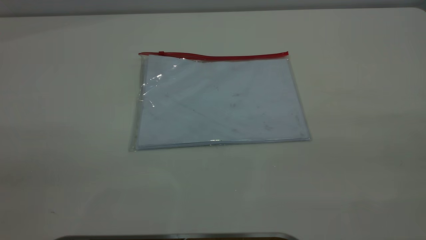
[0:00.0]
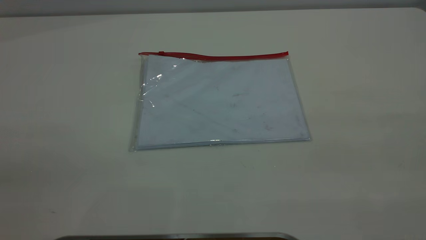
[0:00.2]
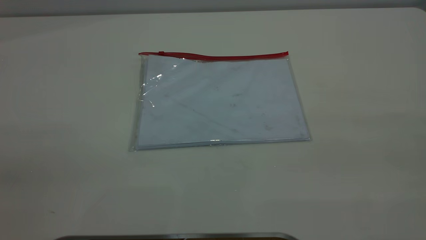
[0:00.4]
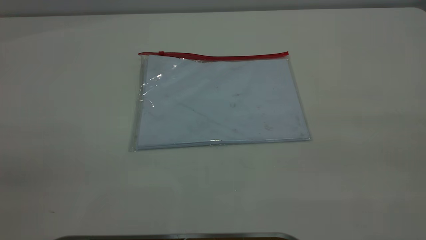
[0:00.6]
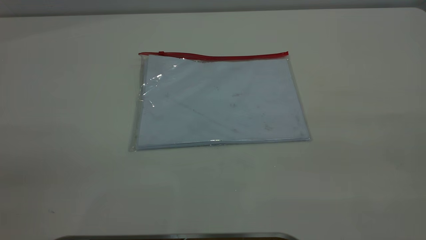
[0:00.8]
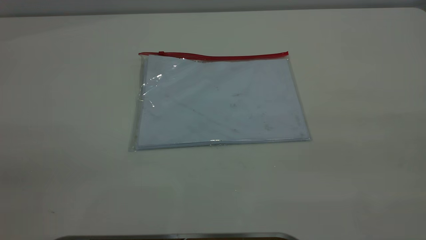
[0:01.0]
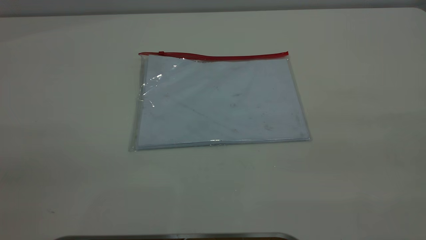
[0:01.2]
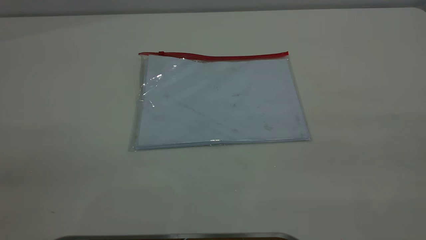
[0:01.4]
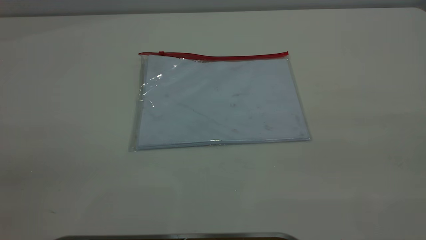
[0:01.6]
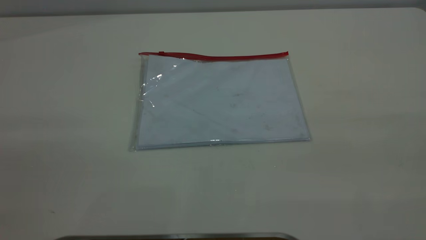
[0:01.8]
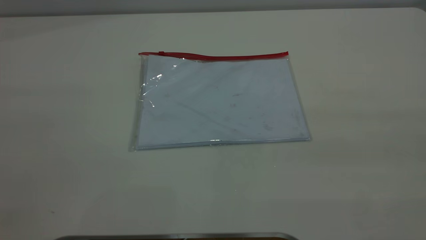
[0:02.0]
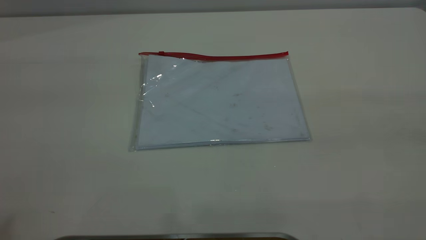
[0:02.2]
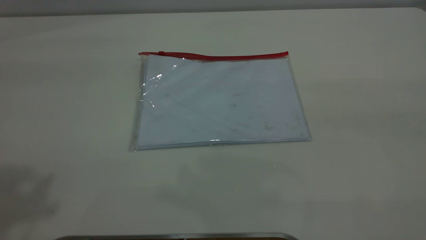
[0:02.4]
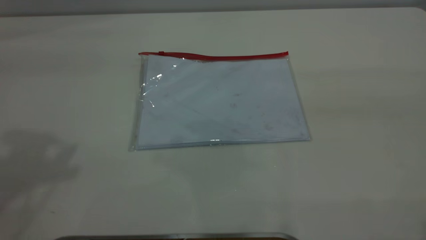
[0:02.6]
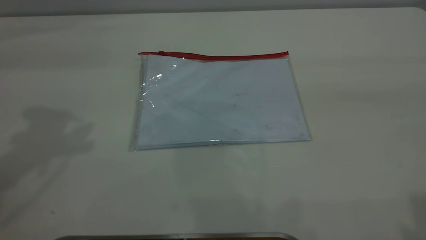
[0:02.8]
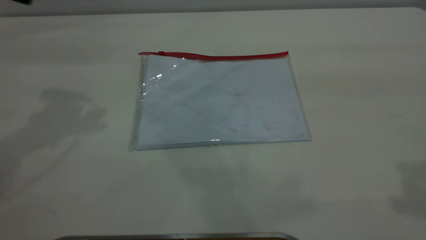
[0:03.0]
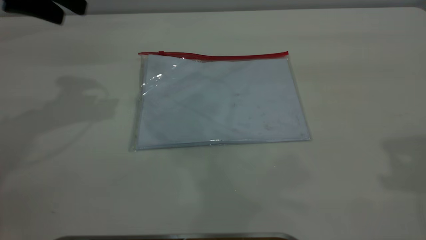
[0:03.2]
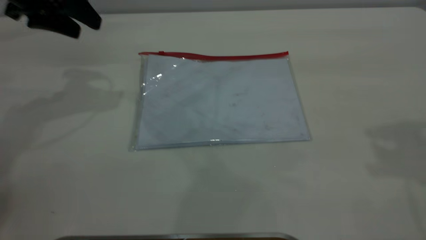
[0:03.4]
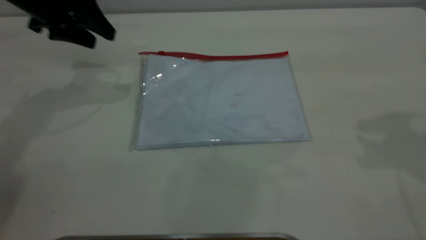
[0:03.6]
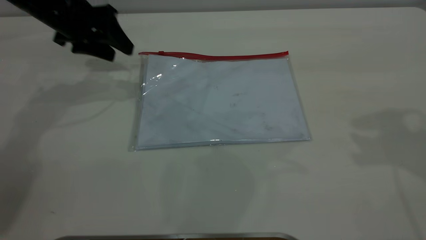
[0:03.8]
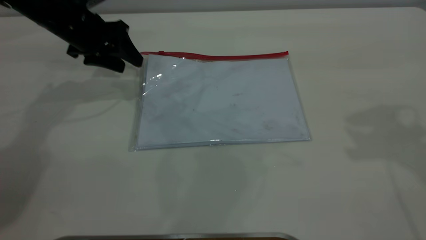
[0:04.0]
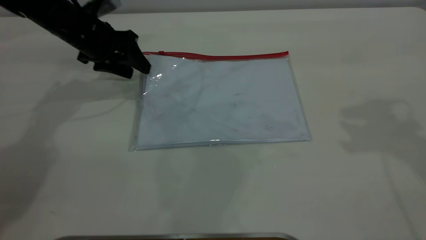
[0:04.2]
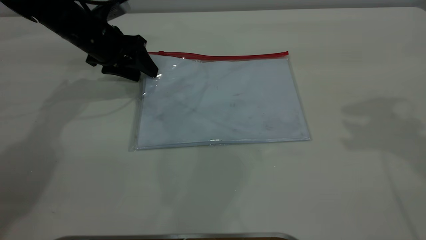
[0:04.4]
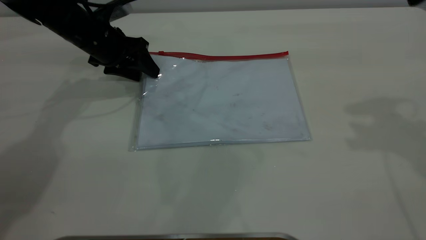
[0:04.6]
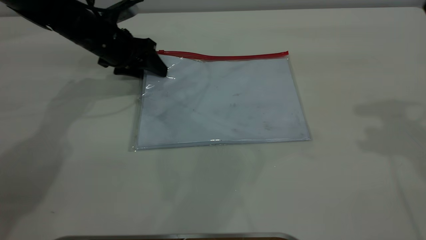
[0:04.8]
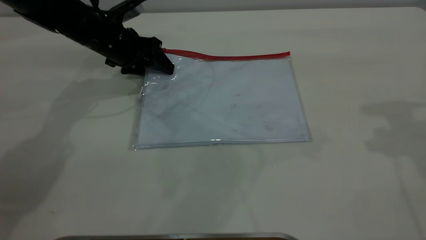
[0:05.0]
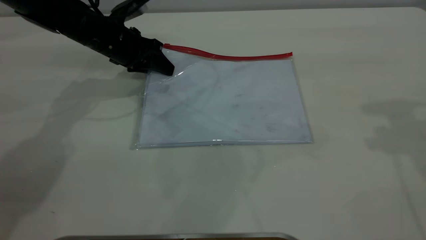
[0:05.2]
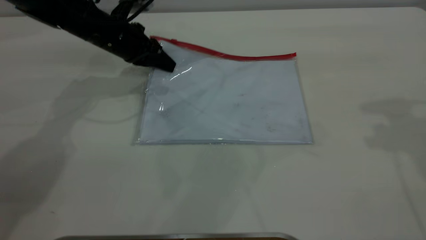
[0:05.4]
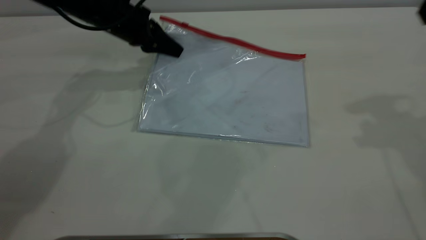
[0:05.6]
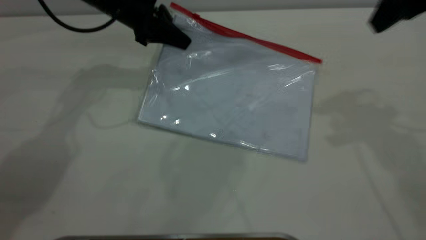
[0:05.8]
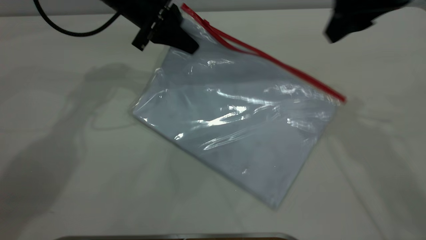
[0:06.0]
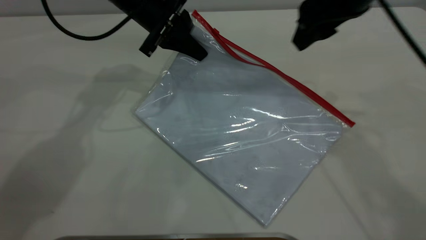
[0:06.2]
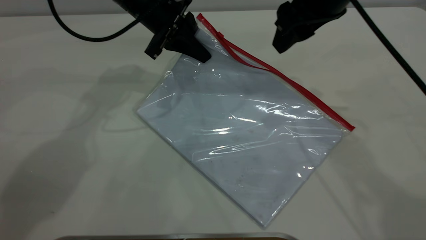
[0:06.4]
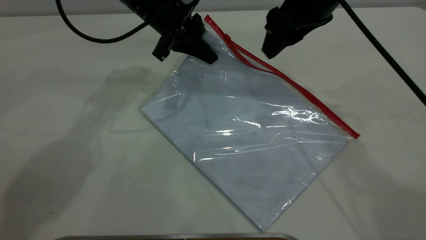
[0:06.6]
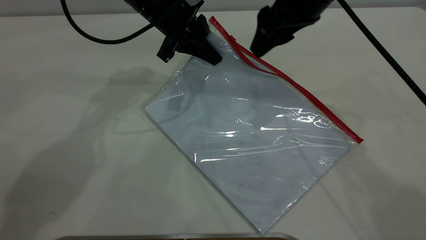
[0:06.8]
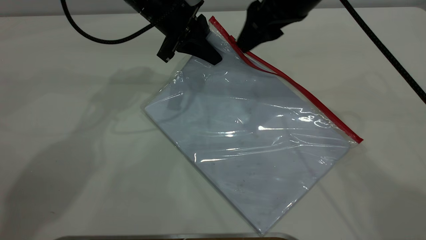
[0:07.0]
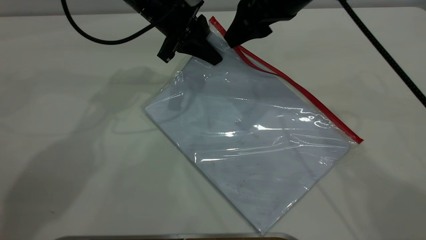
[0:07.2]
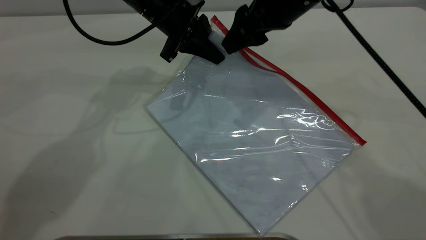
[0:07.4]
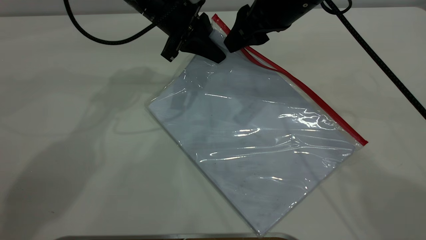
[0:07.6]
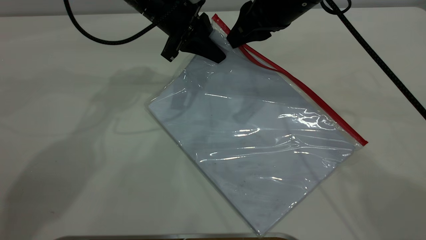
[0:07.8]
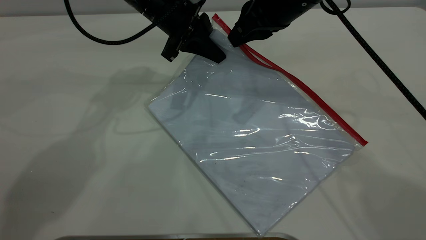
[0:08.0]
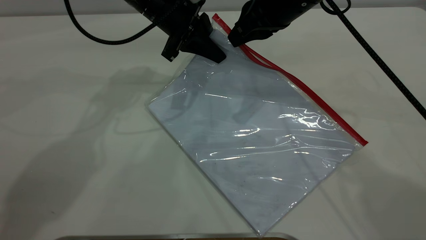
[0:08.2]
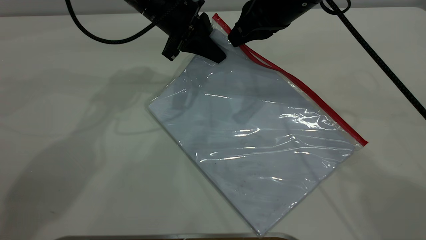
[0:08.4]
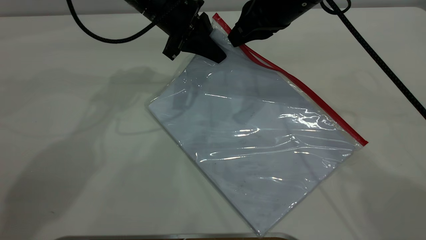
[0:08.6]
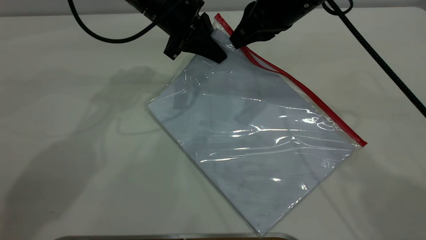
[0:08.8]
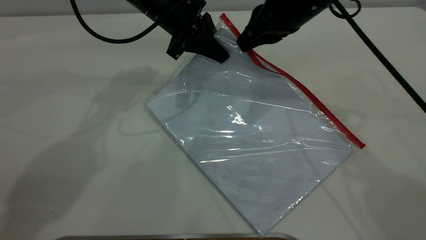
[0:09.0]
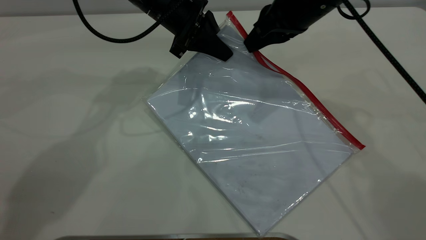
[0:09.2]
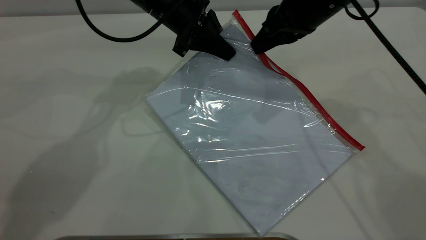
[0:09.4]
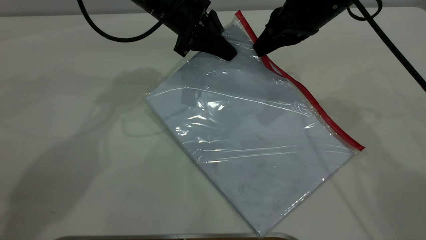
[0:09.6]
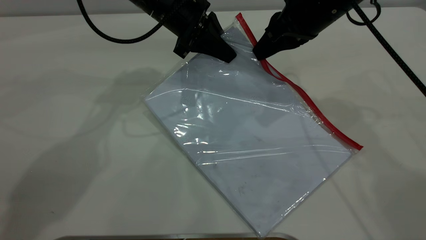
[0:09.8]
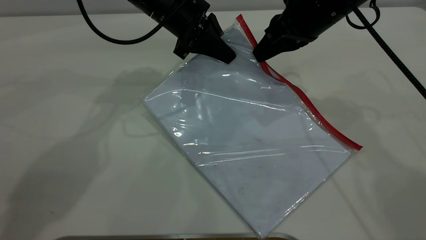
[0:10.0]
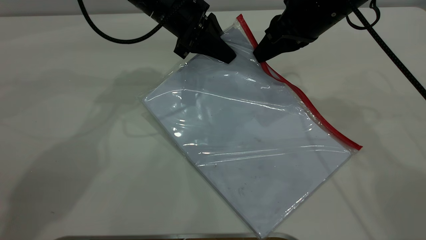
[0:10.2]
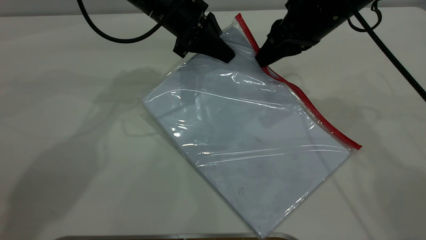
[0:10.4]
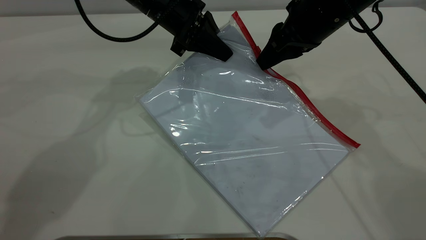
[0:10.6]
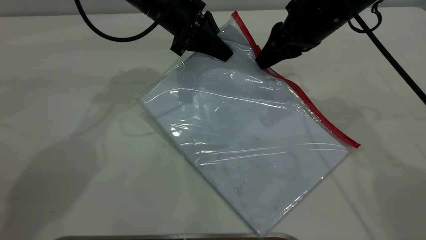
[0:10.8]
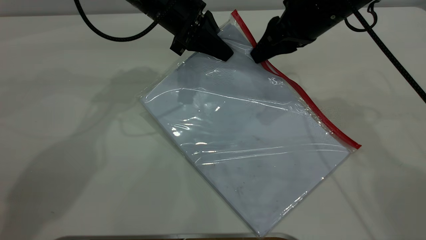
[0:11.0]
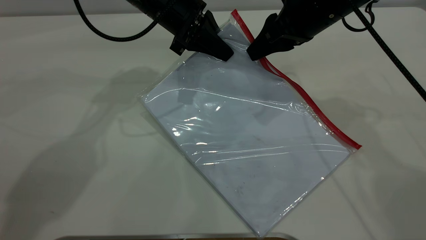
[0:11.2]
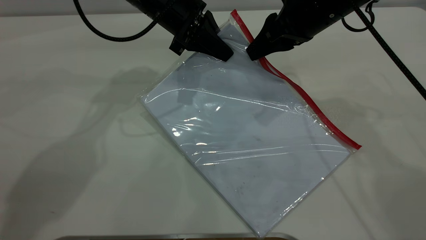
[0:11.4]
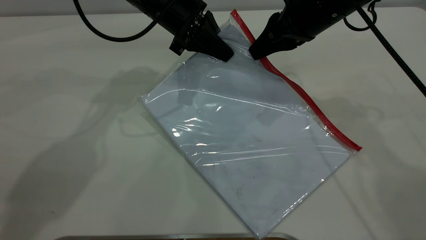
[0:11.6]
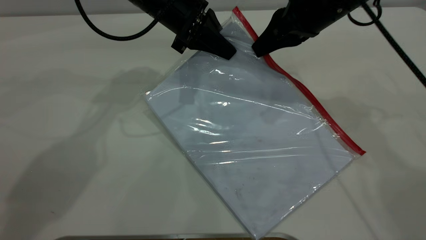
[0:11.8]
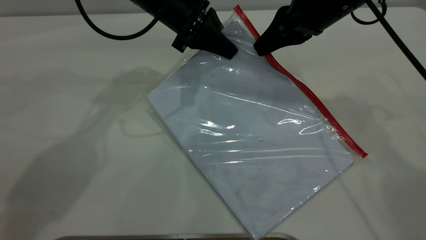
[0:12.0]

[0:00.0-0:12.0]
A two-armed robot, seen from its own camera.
Step, 0:00.0 to 0:05.6: Pick up the transparent plastic bag with the left gripper.
0:00.0 to 0:01.6: The two grippers keep their place.
0:03.0 to 0:04.4: The right gripper is displaced forward and downward by roughly 15 cm; the left gripper shifts approximately 25 cm downward and forward.
0:04.4 to 0:06.0: The left gripper goes some 10 cm to the right and upward, and closes, while the right gripper is displaced to the left and downward by approximately 10 cm.
0:06.0 to 0:07.6: The right gripper heads to the left, covering approximately 10 cm.
0:07.6 to 0:09.0: The right gripper closes.
0:09.0 to 0:12.0: The grippers make only small movements.

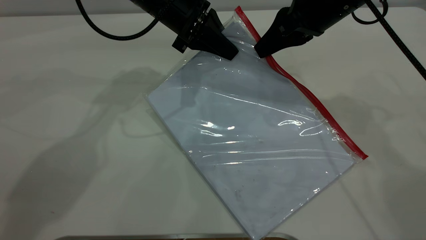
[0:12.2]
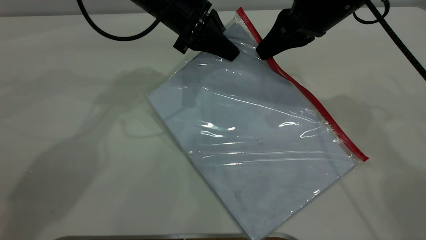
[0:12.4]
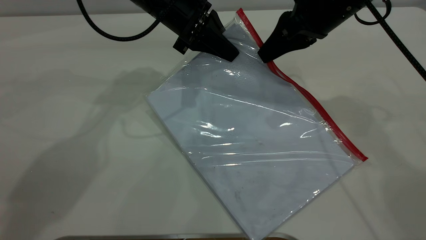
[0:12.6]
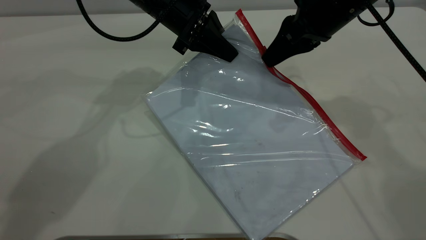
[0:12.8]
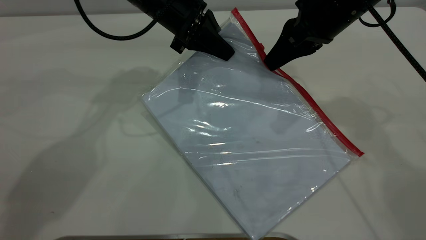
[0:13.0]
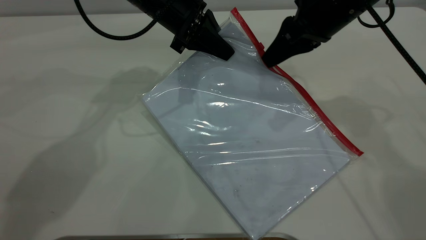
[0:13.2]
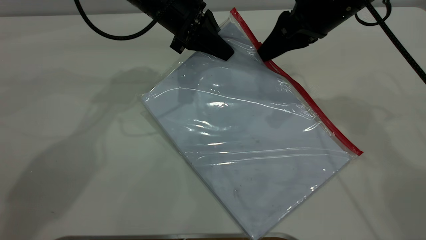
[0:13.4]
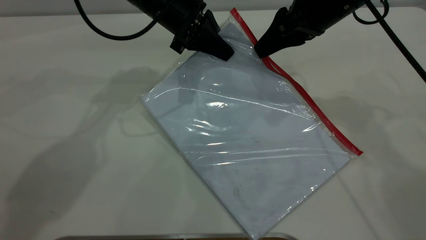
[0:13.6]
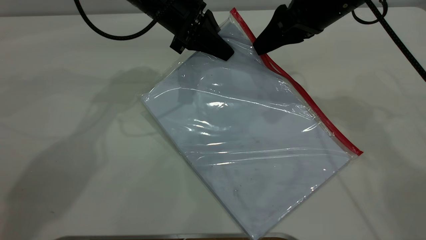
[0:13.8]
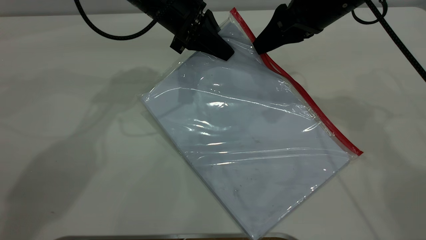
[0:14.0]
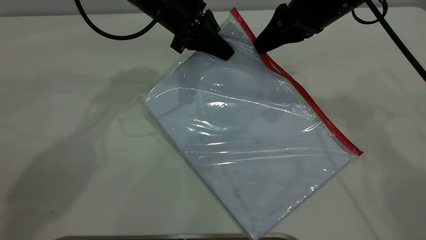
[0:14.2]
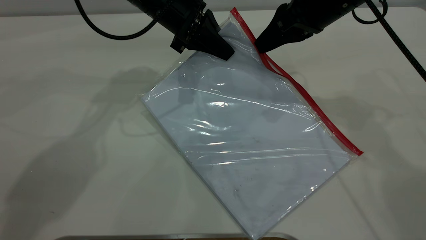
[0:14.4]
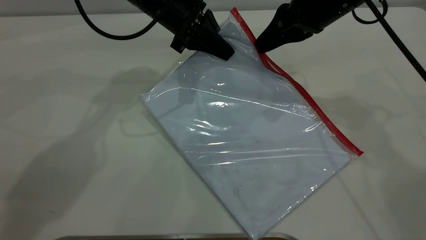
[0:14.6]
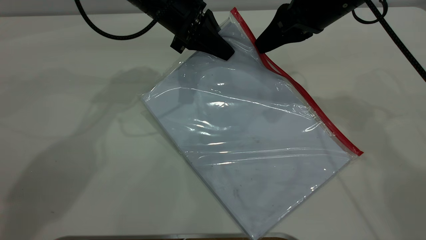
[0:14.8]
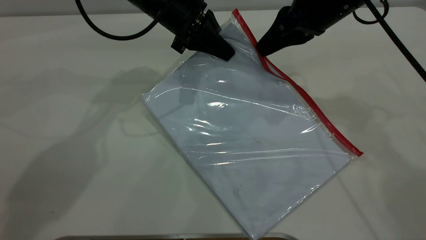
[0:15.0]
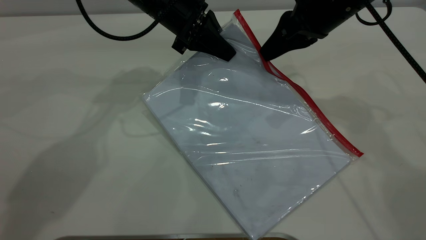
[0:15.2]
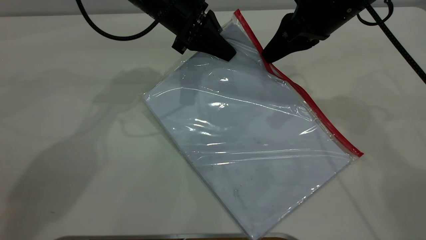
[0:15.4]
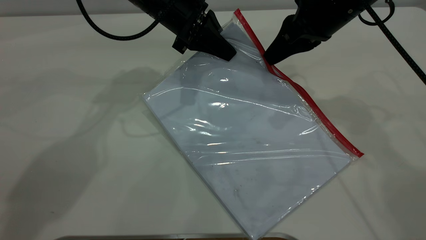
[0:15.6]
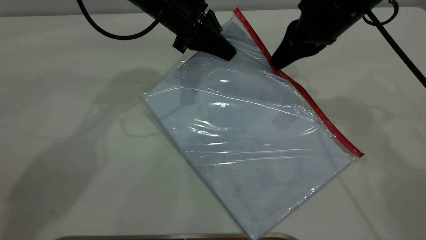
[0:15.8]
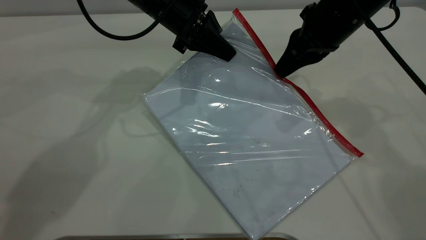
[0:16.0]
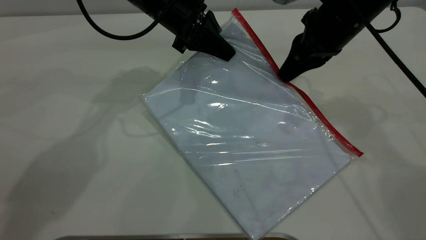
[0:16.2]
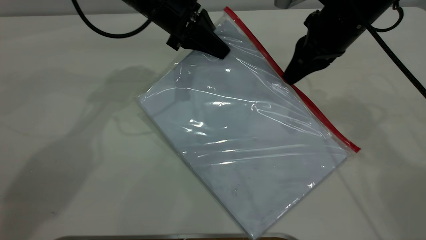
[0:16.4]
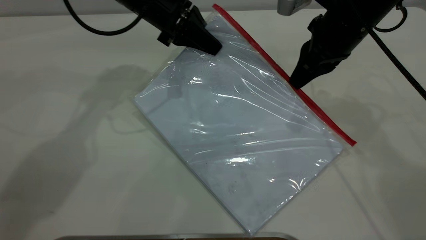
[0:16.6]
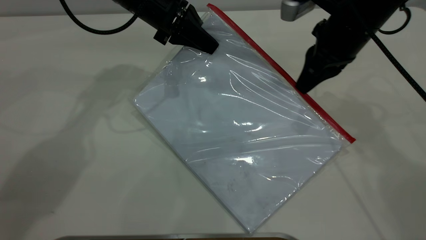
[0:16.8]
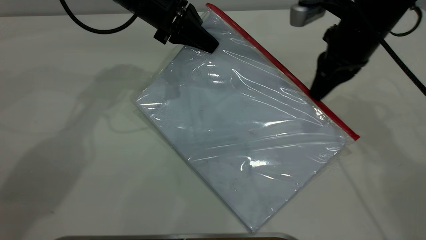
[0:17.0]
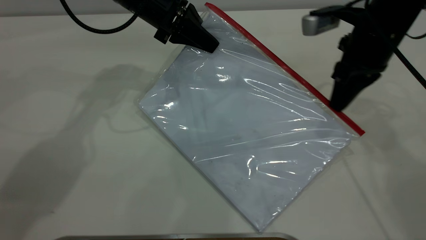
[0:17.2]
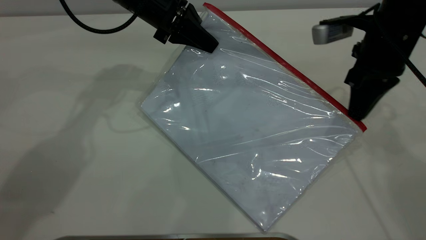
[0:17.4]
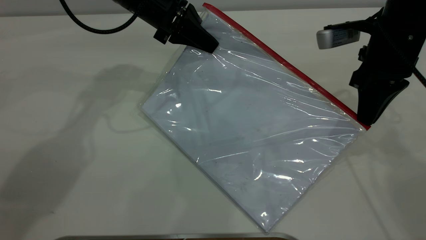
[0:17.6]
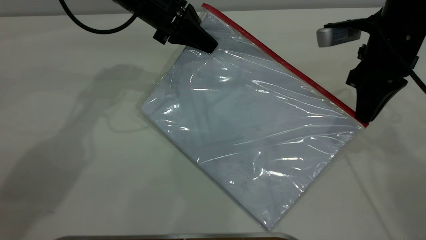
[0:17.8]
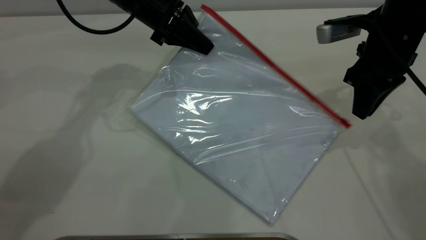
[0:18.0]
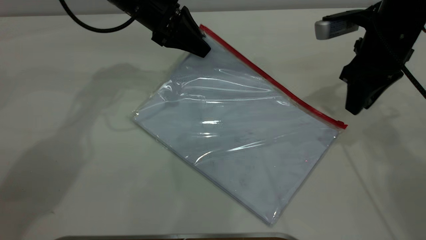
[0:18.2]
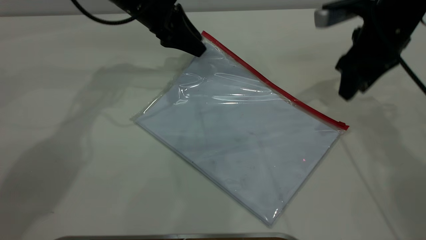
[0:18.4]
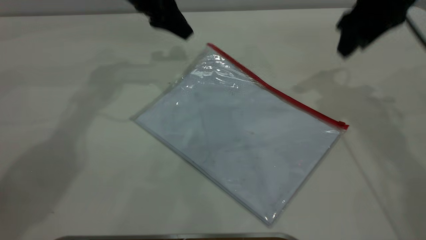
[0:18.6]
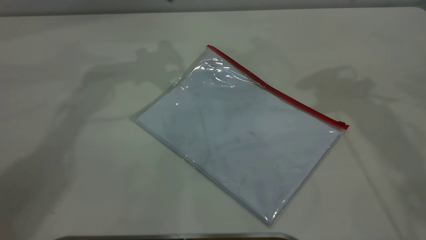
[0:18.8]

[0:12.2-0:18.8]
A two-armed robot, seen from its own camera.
Step, 0:12.2 to 0:17.8: Pulling up the zipper on the transparent plastic bag with the right gripper to close it.
Step, 0:18.0 to 0:18.6: Place the transparent plastic bag.
0:12.2 to 0:13.8: The right gripper opens.
0:13.8 to 0:15.4: The right gripper closes its fingers.
0:15.4 to 0:17.2: The right gripper goes about 5 cm to the right.
0:17.2 to 0:18.8: The two grippers go about 15 cm upward. The right gripper opens, while the left gripper opens up.
